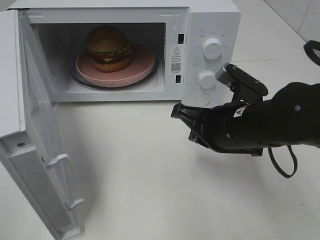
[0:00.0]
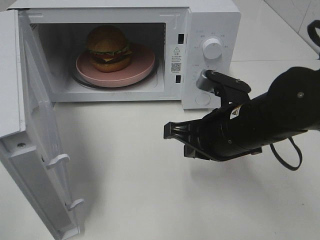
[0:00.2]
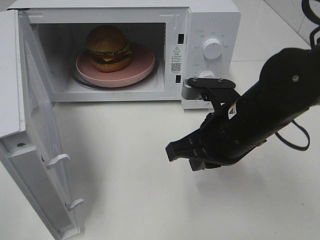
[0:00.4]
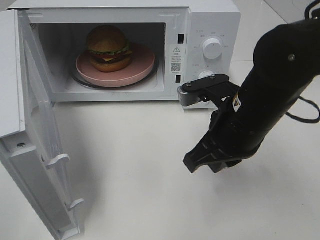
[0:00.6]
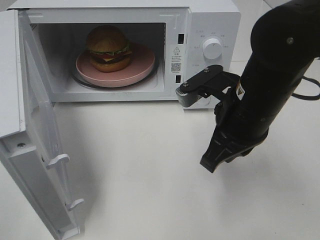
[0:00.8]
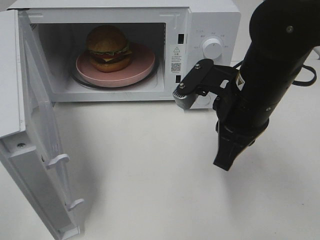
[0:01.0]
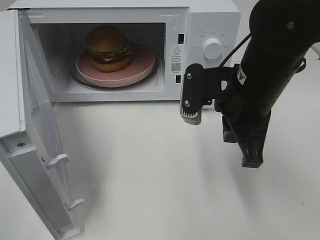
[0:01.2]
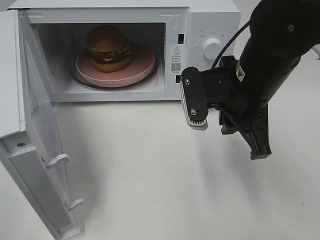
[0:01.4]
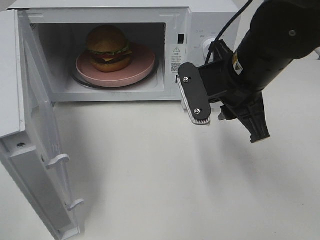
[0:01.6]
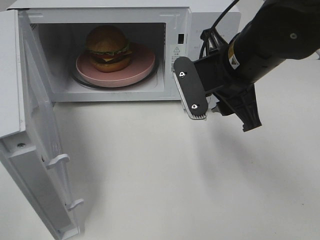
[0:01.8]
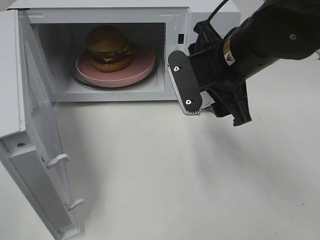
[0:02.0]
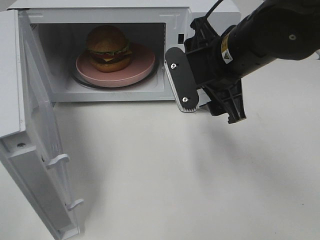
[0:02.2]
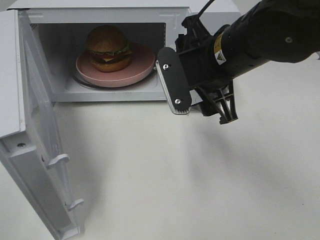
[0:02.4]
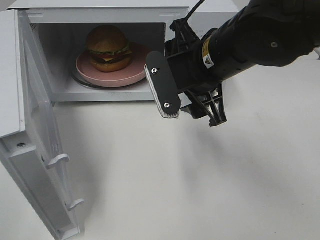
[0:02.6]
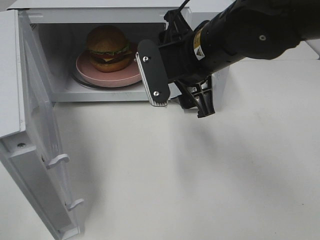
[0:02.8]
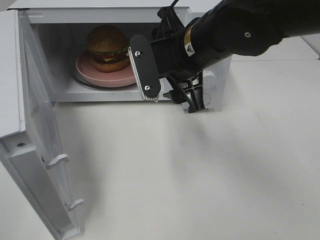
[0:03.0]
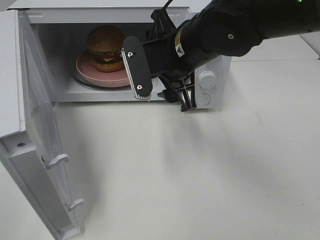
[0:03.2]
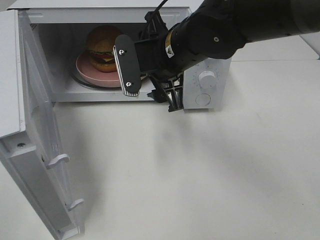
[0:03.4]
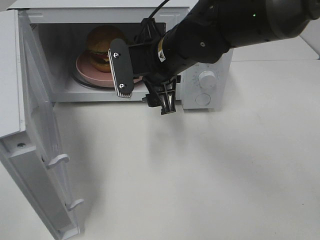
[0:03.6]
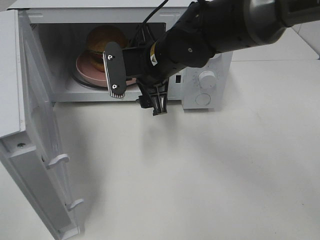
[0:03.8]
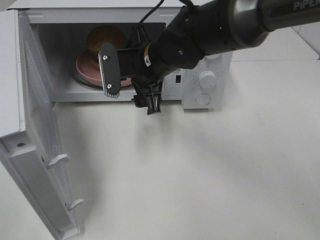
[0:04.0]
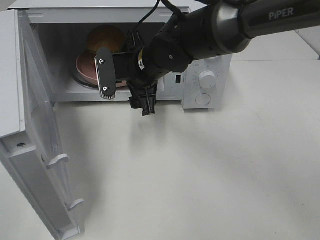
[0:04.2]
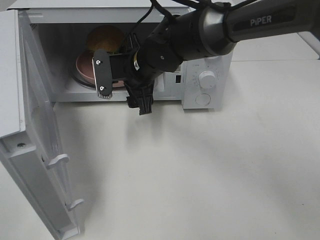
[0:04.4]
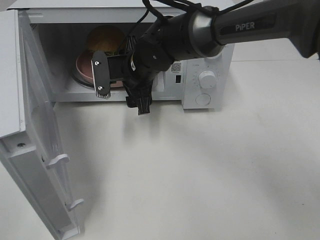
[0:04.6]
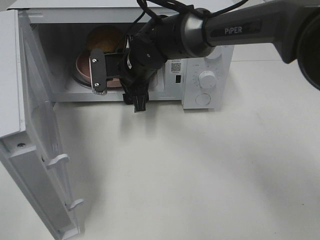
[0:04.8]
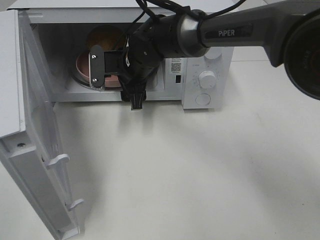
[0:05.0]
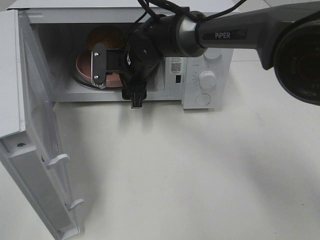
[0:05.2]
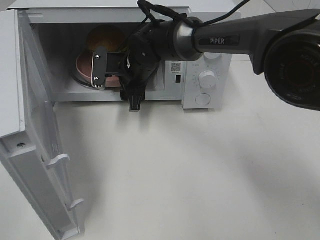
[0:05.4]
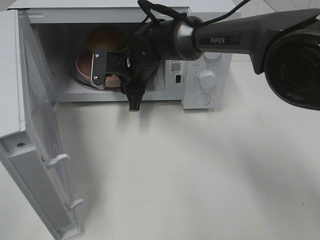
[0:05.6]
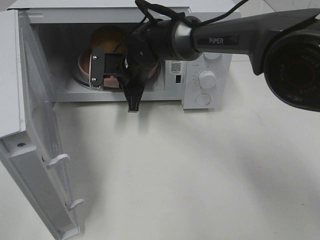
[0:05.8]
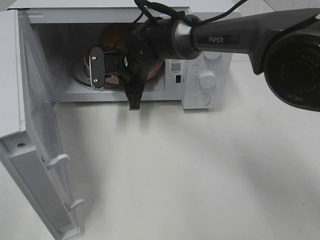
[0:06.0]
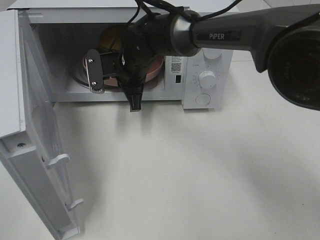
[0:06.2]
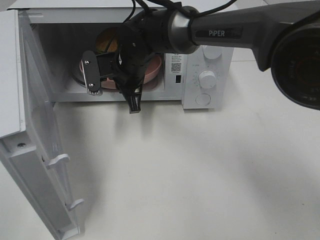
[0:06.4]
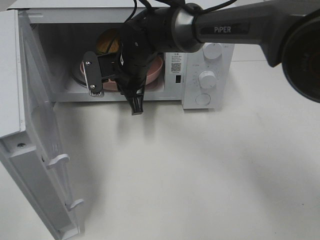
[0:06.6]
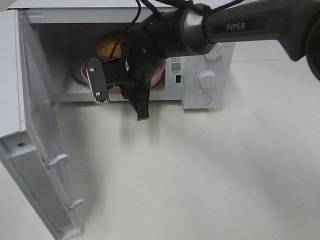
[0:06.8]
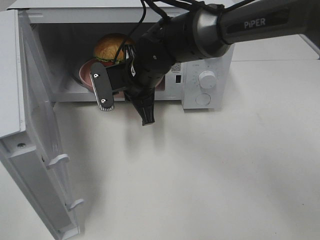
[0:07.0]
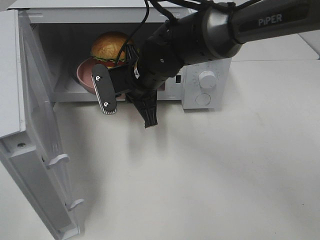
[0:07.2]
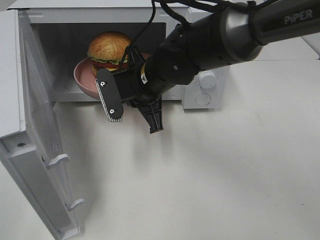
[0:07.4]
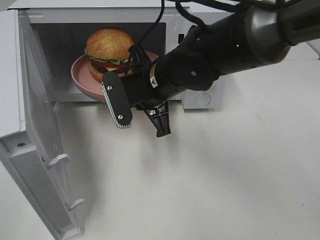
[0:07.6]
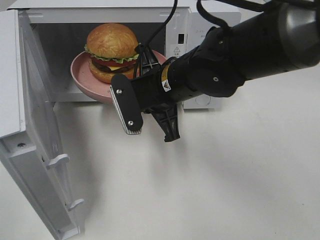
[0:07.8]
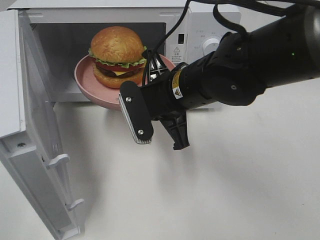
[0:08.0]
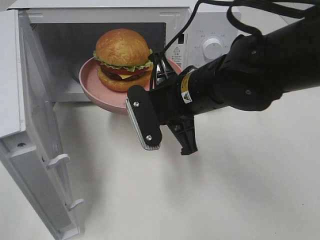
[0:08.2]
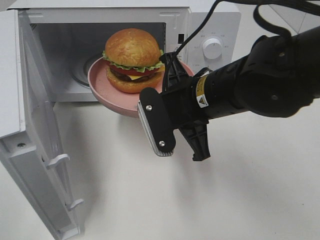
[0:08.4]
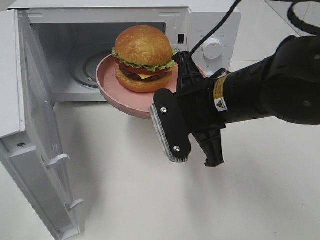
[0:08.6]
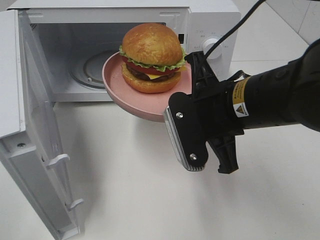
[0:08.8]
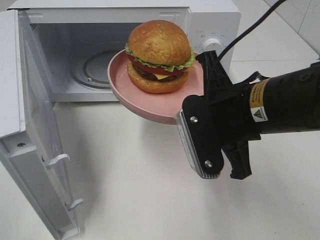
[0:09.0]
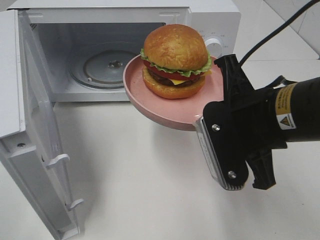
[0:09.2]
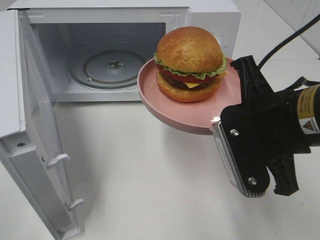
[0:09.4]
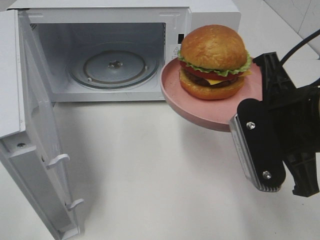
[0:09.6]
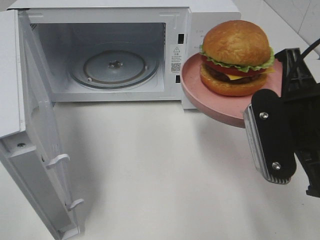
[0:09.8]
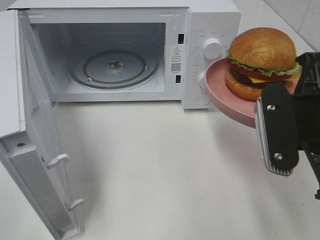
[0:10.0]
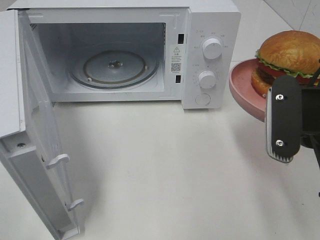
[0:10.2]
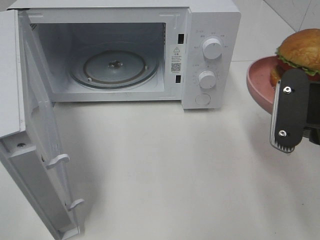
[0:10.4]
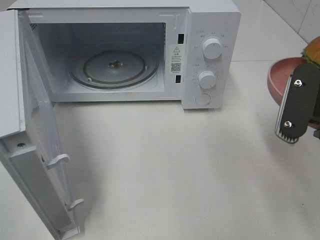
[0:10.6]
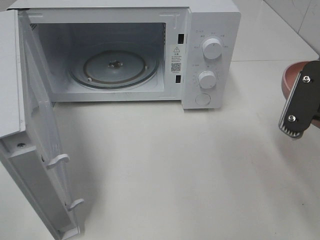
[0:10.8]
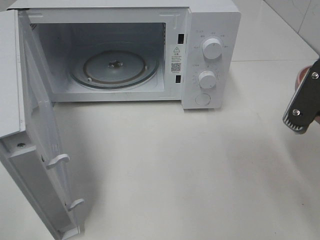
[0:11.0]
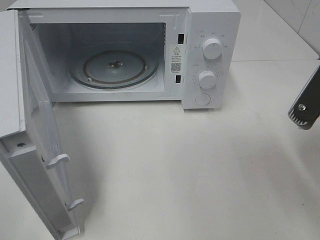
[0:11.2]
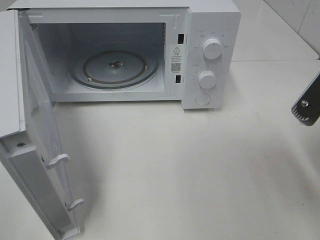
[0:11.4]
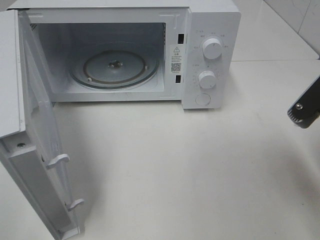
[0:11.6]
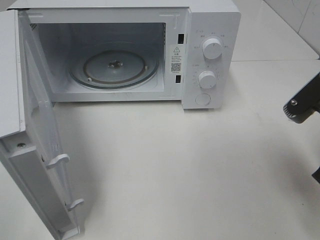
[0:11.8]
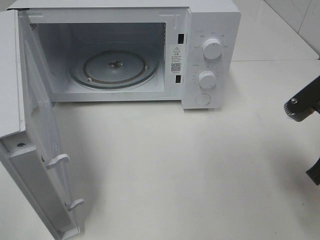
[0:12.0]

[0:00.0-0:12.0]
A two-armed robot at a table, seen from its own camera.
Task of the whole recording: Heat the burger.
Step, 0:00.0 to 0:05.8: Right hand: grab the plate with the hamburger.
0:00.0 to 0:01.6: The right gripper goes approximately 5 cm upward, and opens its fingers.
0:01.6 to 0:03.0: The right gripper moves to the left, roughly 5 cm, and opens.
0:03.0 to 0:04.4: The right gripper travels forward, downward and to the left by some 15 cm.
0:04.4 to 0:06.0: The right gripper moves approximately 5 cm, and closes.
0:06.0 to 0:07.6: The right gripper travels backward and to the right by roughly 10 cm.
0:07.6 to 0:09.0: The right gripper heads backward and to the right, covering approximately 15 cm.
0:09.0 to 0:10.4: The right gripper goes some 10 cm to the right.

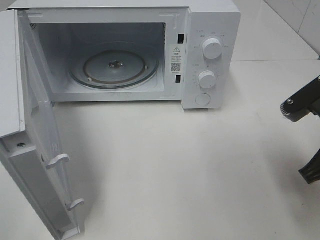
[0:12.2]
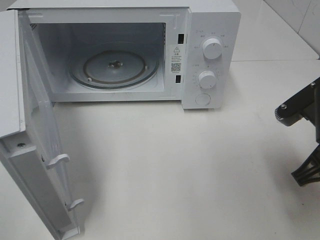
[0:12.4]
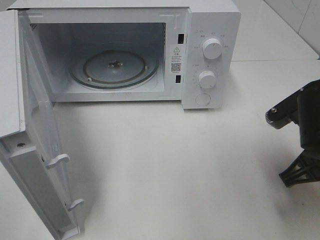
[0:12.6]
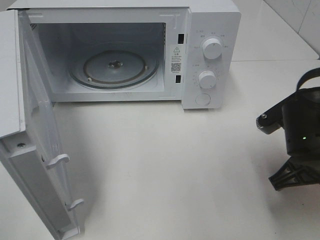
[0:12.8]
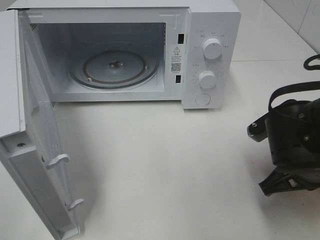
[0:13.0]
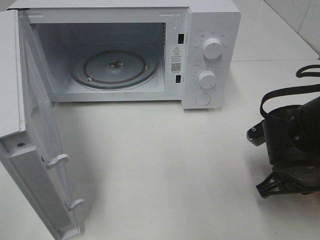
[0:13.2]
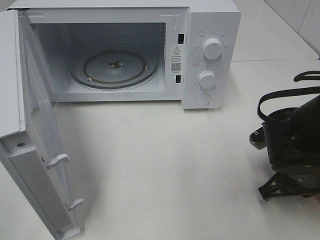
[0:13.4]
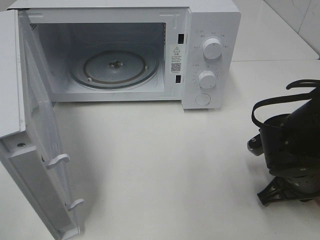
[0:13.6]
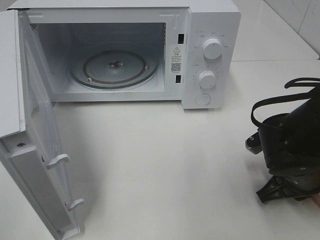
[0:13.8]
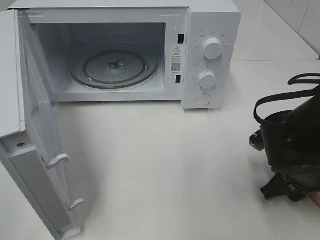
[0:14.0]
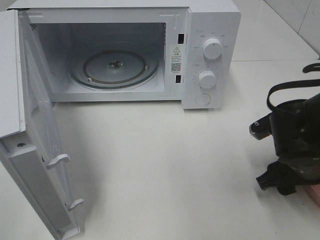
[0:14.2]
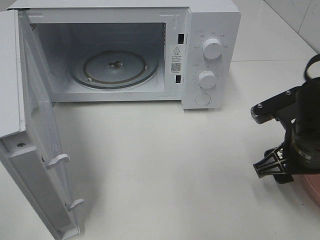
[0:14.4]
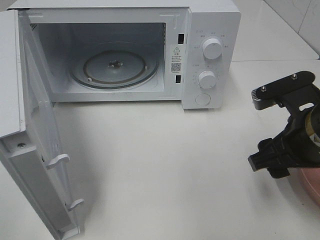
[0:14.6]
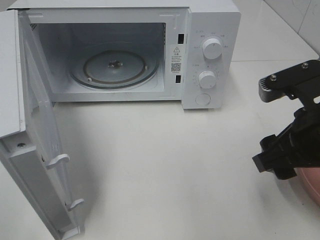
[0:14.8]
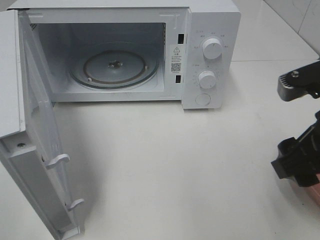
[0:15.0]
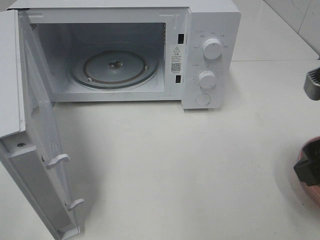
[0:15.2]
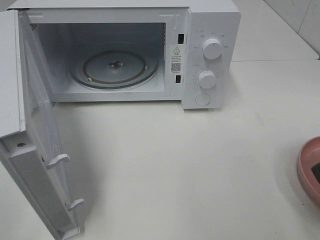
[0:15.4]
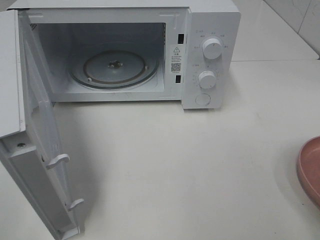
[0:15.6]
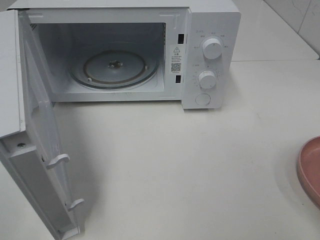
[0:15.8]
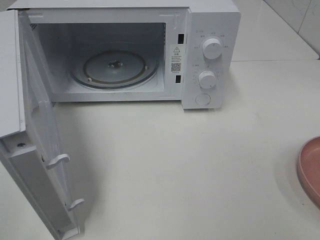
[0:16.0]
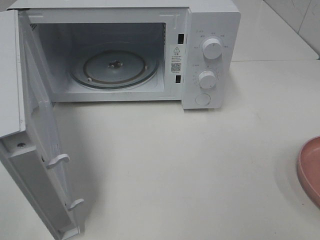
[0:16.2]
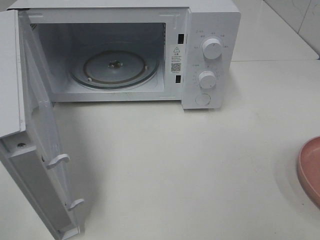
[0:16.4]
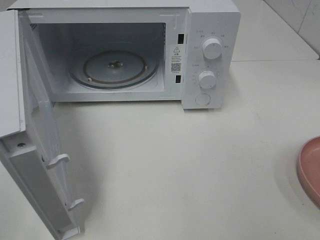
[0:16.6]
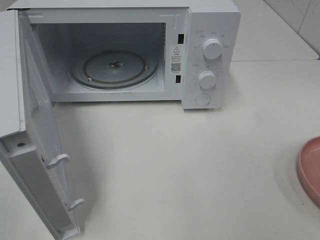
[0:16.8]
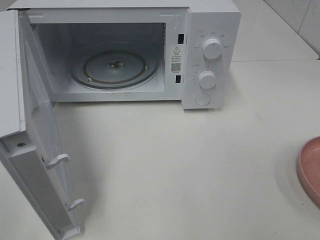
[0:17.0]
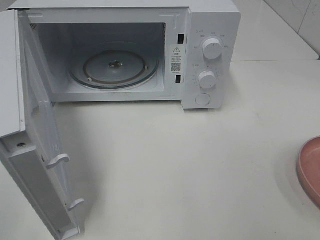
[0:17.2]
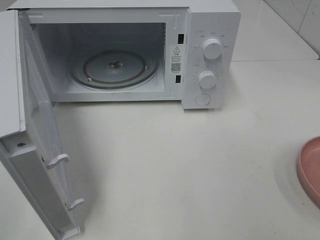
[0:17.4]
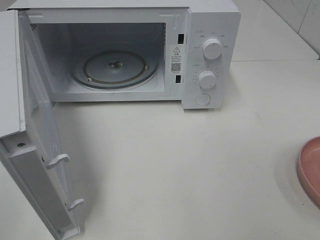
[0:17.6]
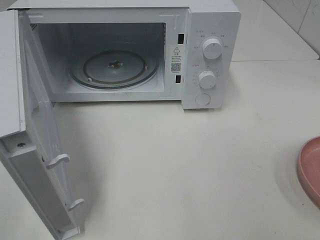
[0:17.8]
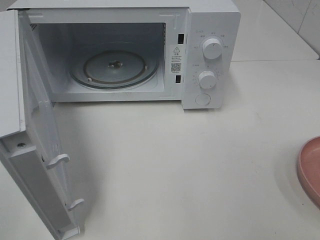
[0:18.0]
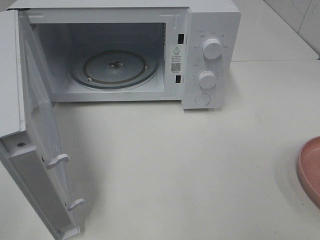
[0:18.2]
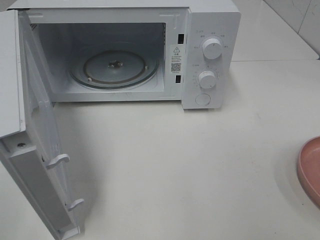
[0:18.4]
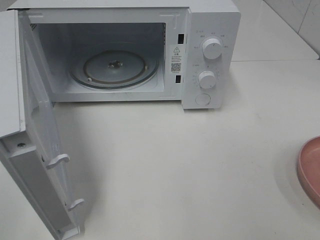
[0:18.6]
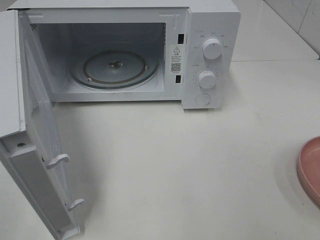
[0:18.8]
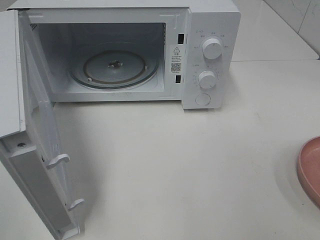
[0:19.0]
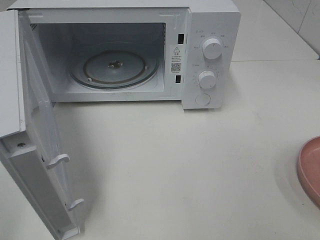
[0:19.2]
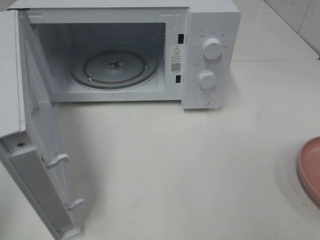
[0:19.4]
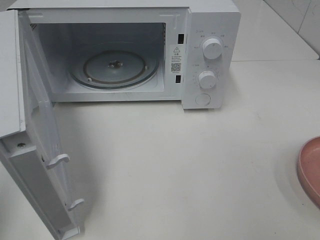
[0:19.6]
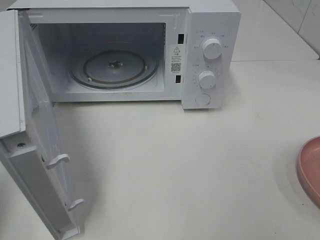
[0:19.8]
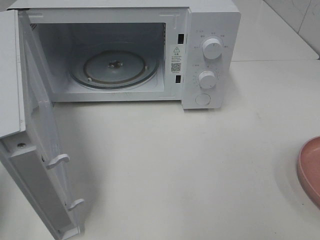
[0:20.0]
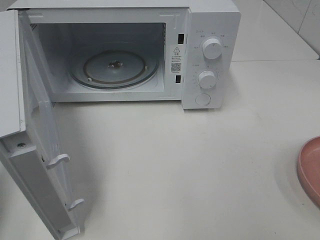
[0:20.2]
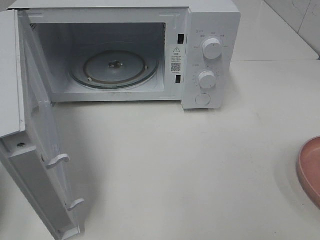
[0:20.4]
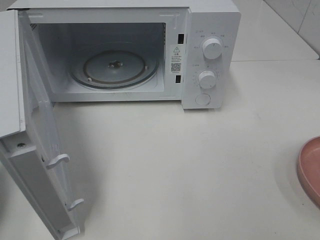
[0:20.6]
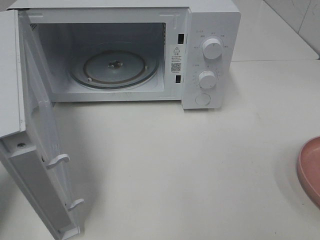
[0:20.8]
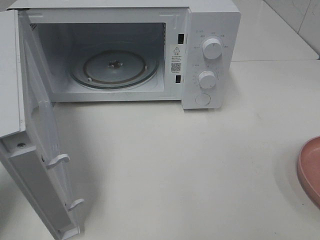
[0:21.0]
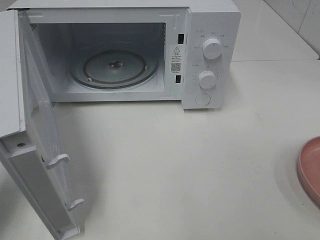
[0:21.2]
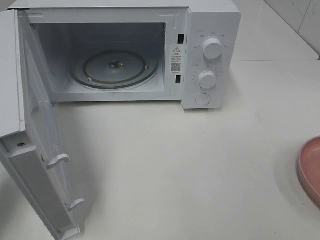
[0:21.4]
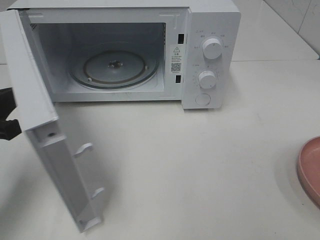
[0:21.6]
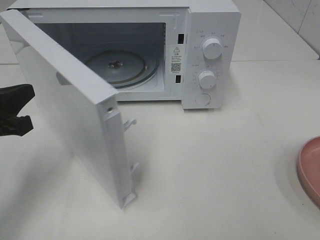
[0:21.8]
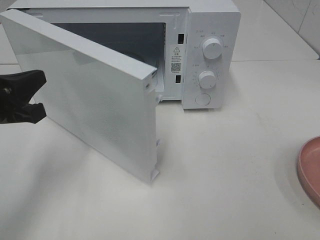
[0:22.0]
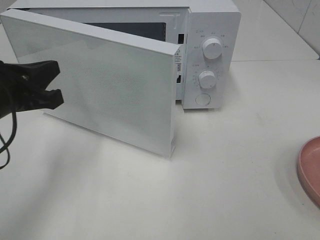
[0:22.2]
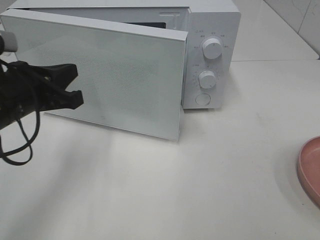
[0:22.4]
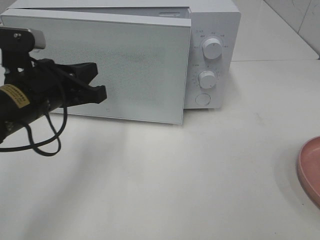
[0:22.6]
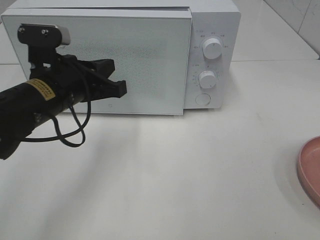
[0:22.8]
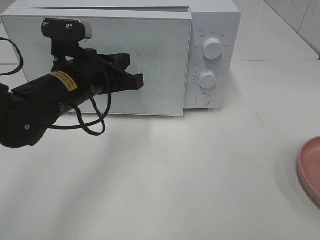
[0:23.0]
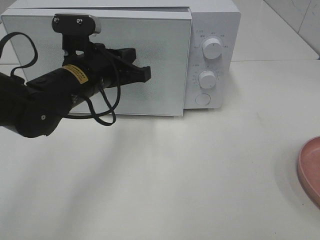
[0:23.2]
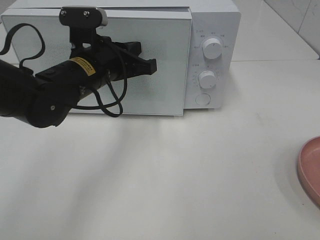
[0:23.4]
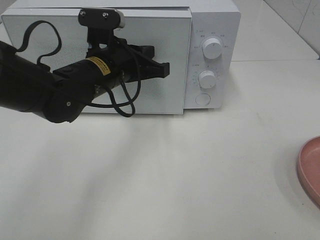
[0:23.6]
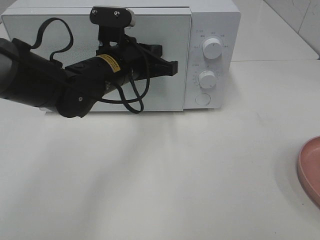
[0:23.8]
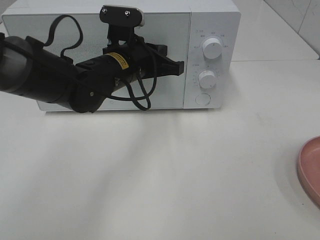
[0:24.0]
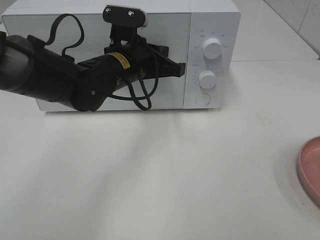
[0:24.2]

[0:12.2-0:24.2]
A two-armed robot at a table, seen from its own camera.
Task of the whole recording: Heat the burger.
0:12.2 to 0:13.8: The right gripper shifts roughly 10 cm downward.
0:13.8 to 0:15.2: The right gripper moves upward and backward, about 20 cm, and opens its fingers.
0:15.2 to 0:16.6: The right gripper travels backward and to the right by approximately 15 cm.
0:19.8 to 0:21.2: The left gripper is displaced forward and downward by roughly 15 cm.
0:21.2 to 0:22.6: The left gripper is displaced to the right and forward by roughly 15 cm.
0:22.6 to 0:24.2: The left gripper shifts about 15 cm to the right and forward.
